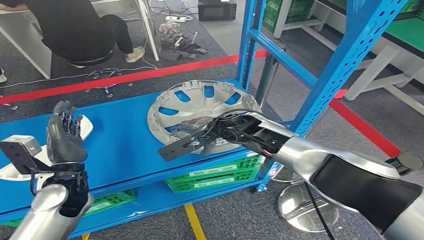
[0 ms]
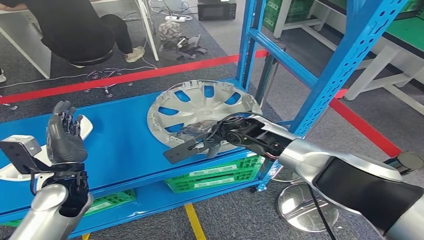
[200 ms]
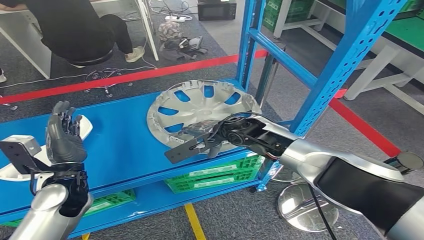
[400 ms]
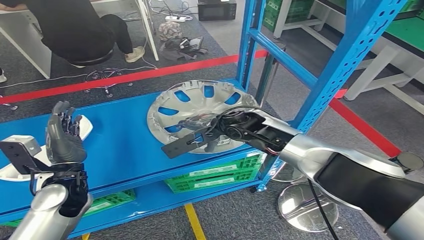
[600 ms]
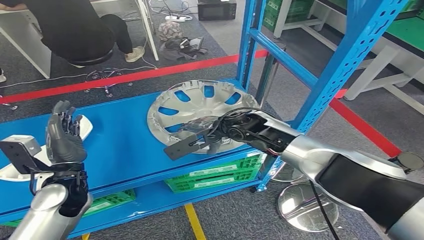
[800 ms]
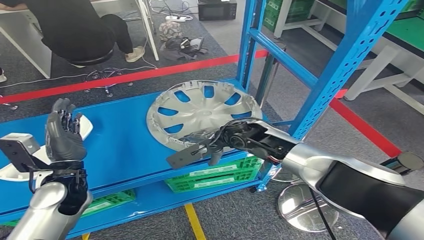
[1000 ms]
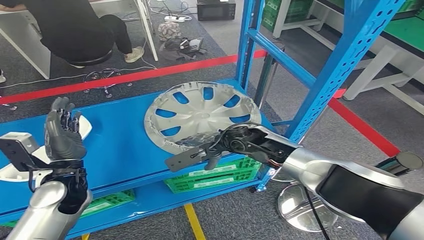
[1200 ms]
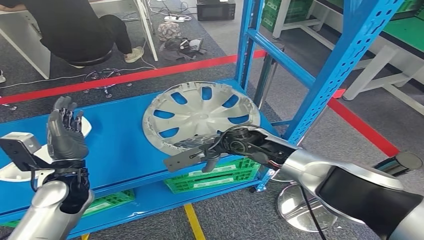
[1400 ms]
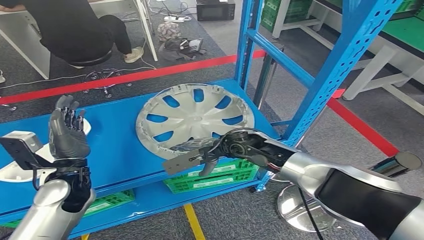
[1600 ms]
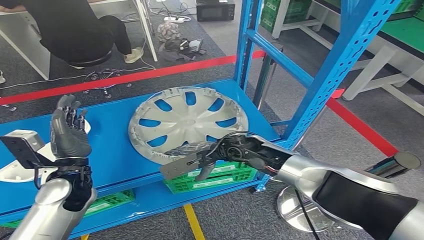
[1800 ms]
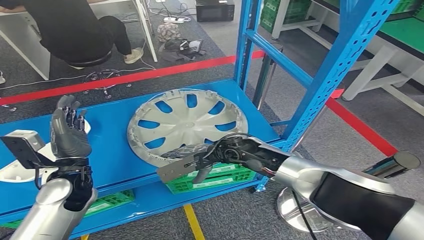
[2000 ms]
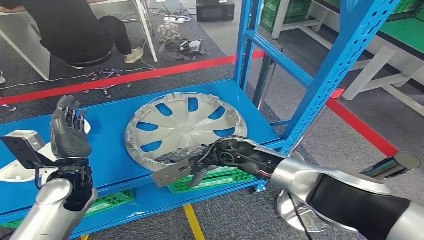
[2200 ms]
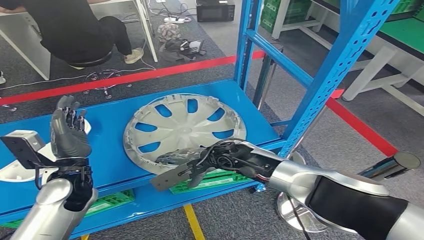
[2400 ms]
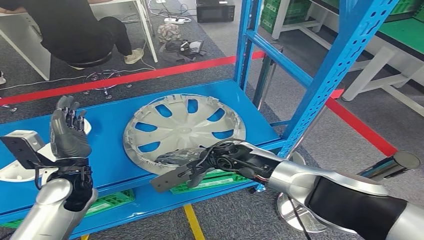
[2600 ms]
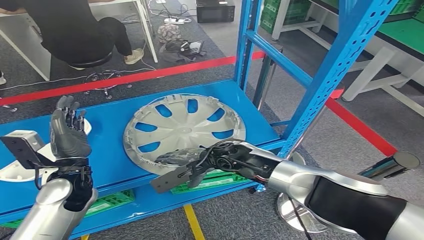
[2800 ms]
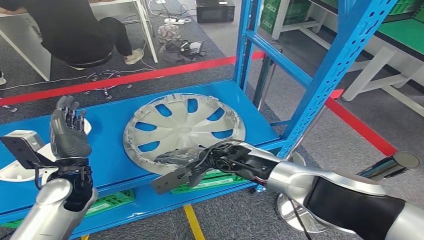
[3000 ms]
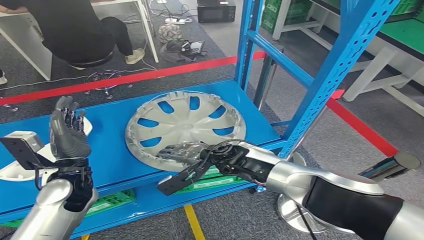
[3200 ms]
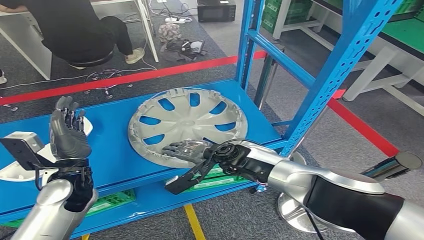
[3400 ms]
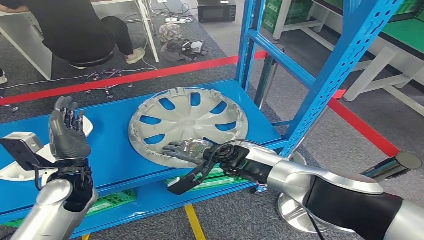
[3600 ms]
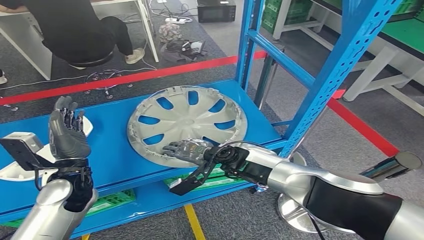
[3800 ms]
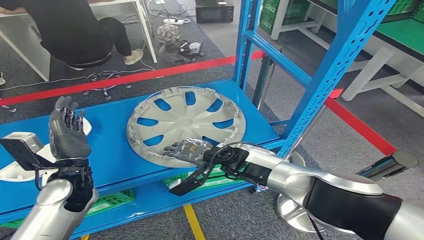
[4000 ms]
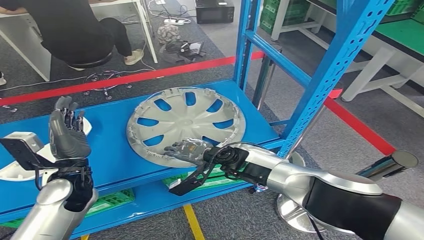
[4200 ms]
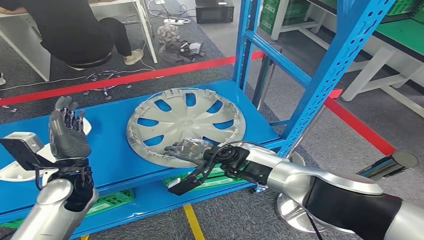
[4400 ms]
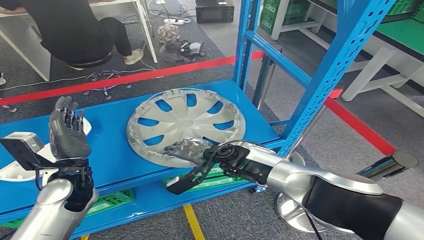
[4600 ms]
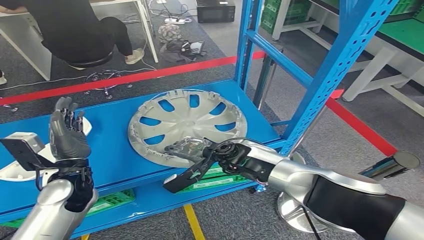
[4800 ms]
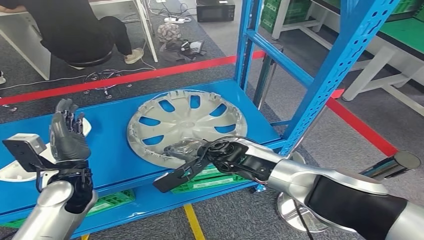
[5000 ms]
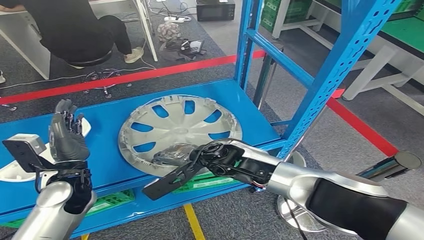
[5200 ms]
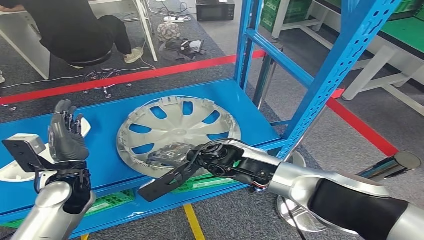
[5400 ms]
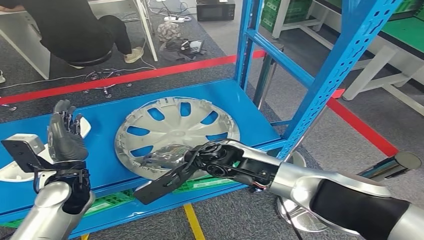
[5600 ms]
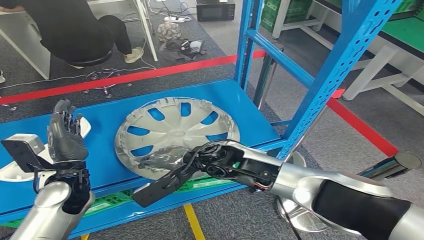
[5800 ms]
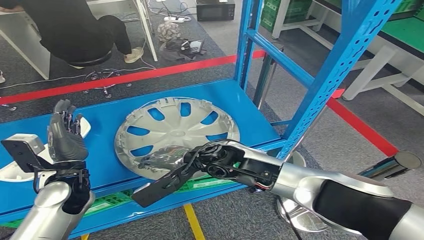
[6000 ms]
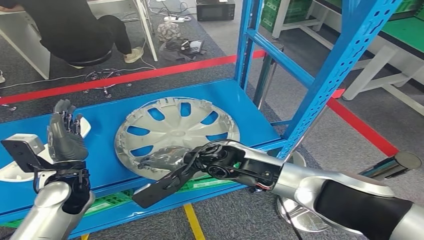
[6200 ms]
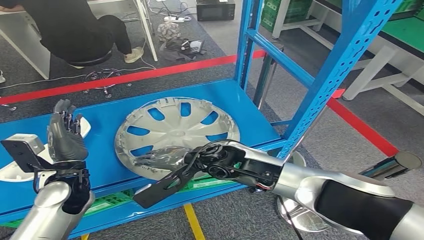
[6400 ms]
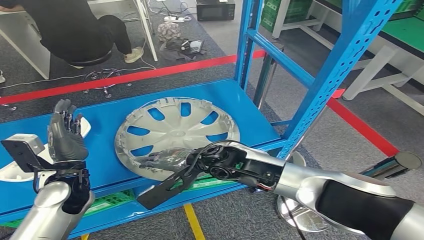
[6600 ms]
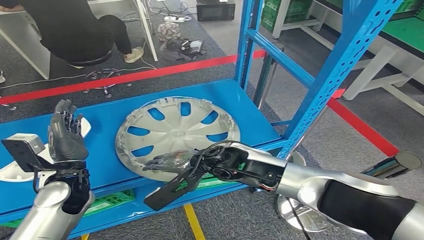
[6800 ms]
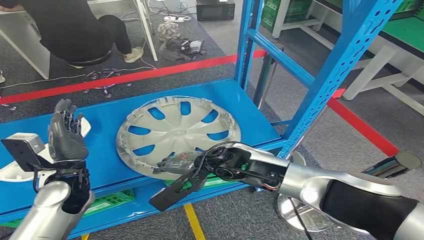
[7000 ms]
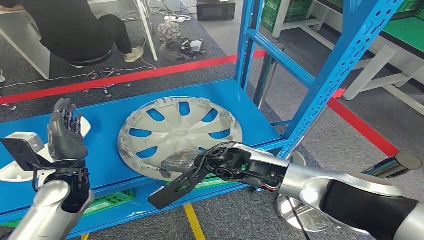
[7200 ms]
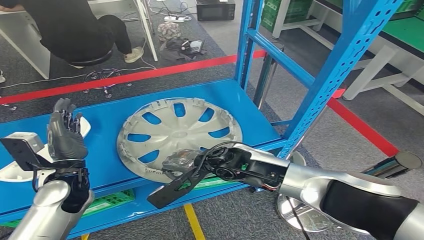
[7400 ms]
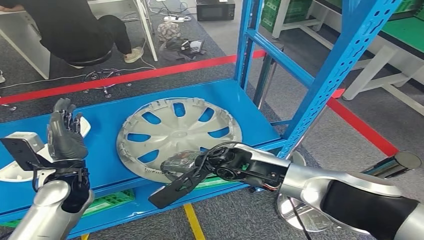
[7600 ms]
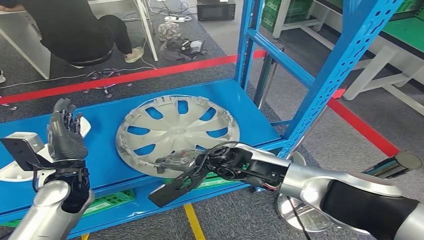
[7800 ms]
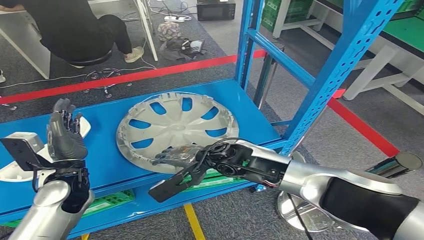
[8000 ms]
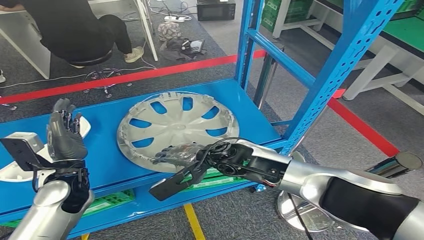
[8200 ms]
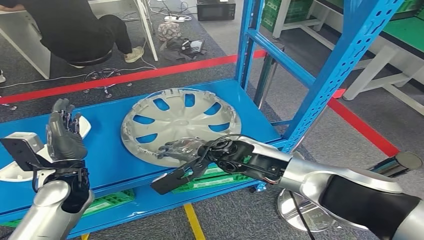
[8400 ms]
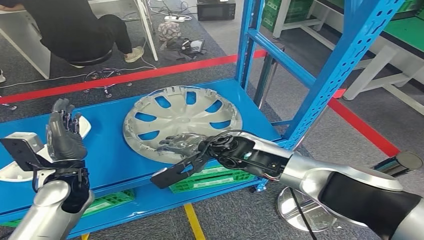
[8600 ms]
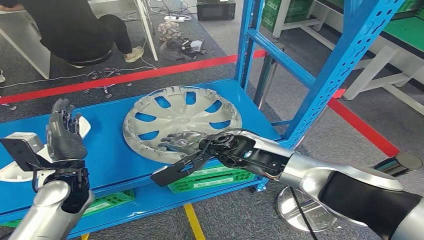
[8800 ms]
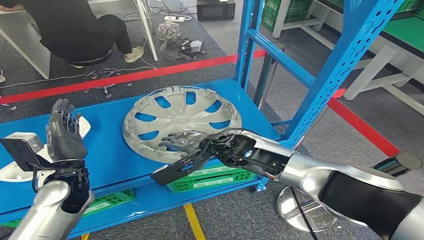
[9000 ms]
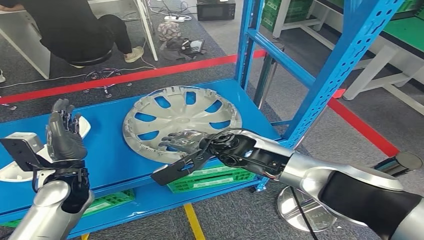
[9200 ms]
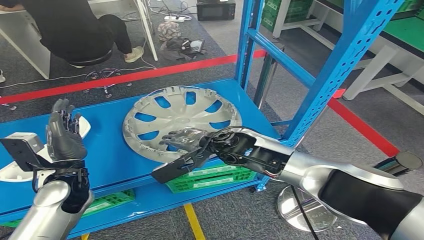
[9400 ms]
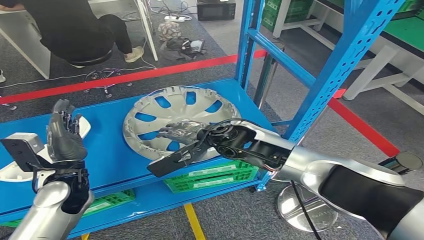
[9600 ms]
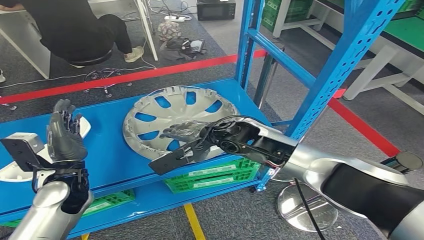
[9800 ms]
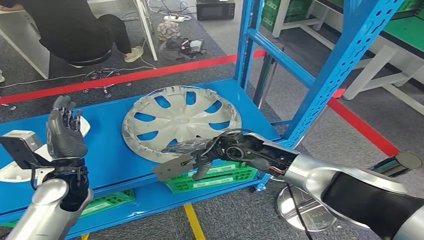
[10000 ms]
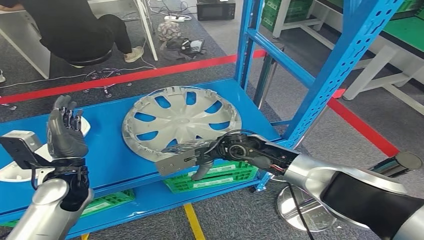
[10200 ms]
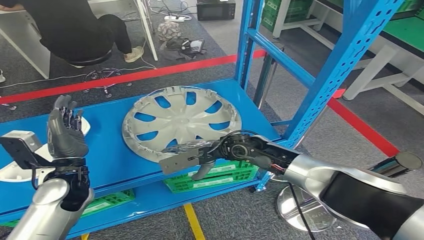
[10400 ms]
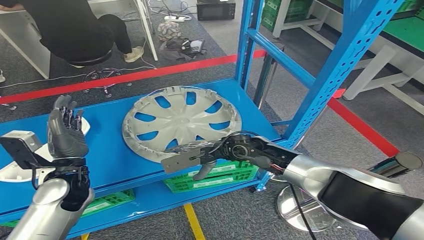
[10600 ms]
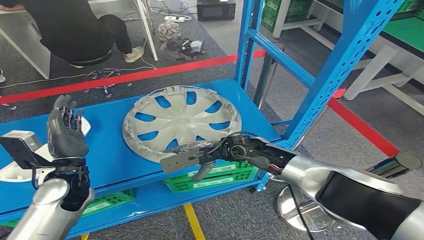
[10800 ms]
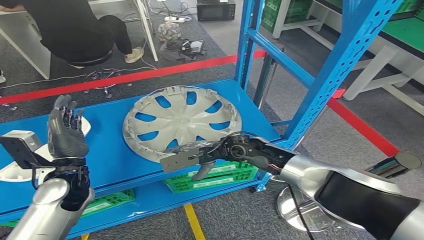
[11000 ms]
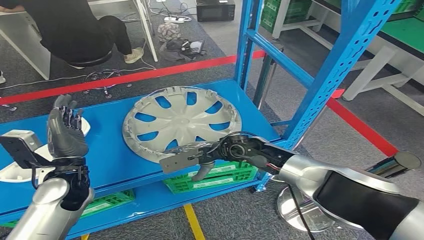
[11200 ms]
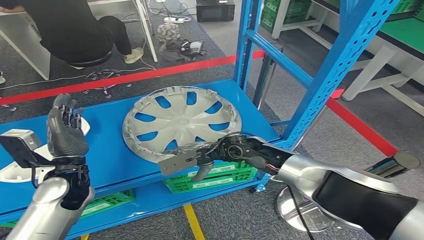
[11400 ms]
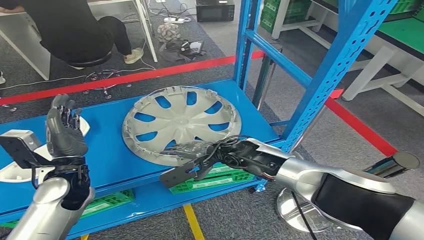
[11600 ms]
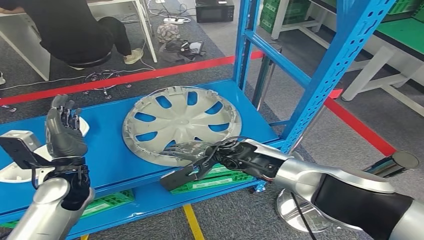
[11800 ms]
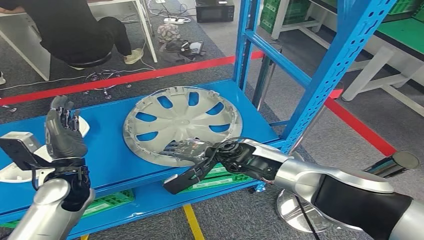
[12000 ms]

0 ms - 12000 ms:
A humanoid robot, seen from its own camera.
4400 ms - 6000 ms: The right hand travels upward and to the left by approximately 10 cm.
6000 ms - 9000 ms: The hands make only small movements.

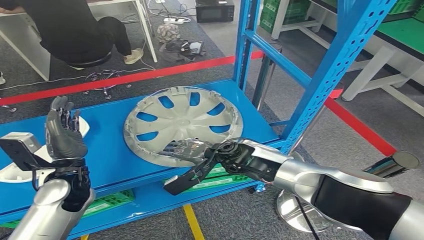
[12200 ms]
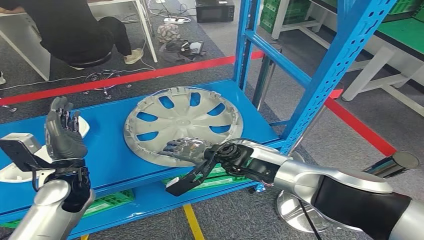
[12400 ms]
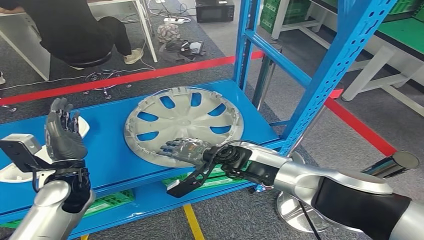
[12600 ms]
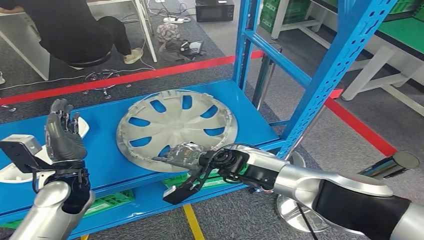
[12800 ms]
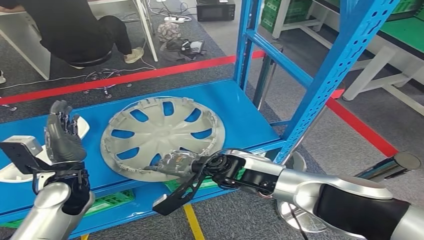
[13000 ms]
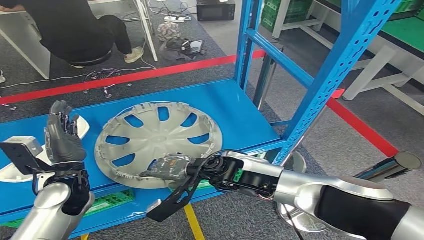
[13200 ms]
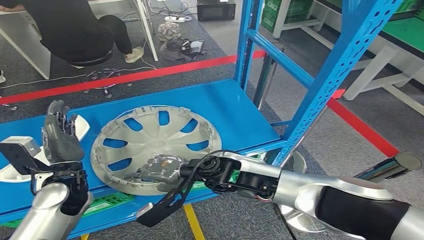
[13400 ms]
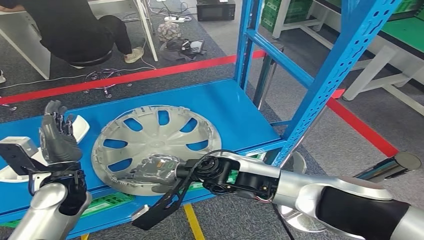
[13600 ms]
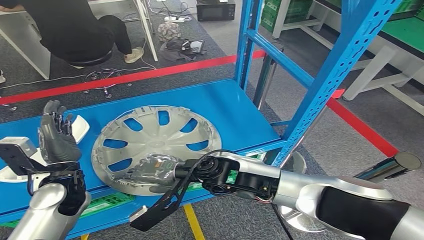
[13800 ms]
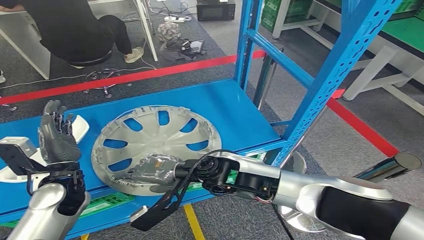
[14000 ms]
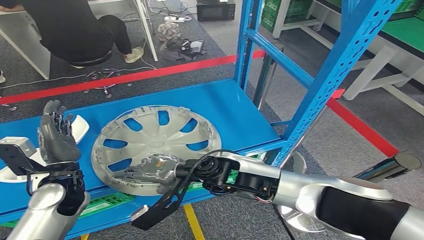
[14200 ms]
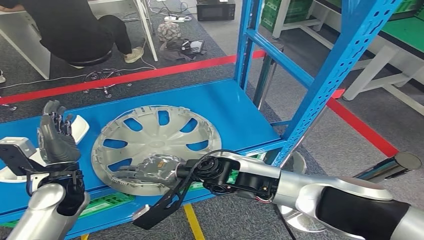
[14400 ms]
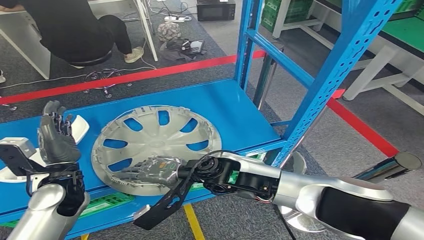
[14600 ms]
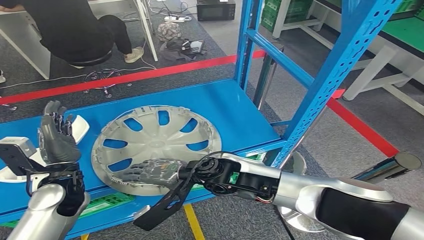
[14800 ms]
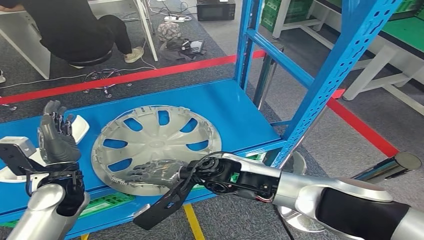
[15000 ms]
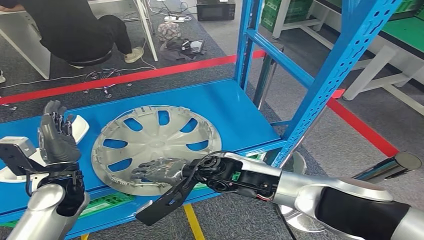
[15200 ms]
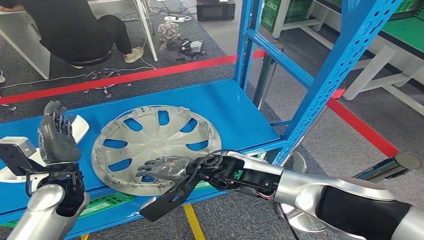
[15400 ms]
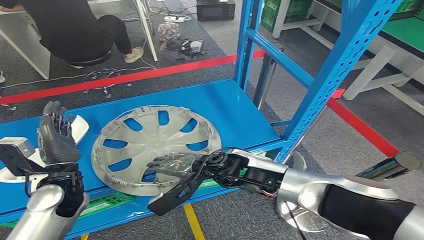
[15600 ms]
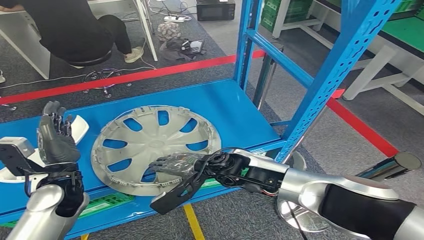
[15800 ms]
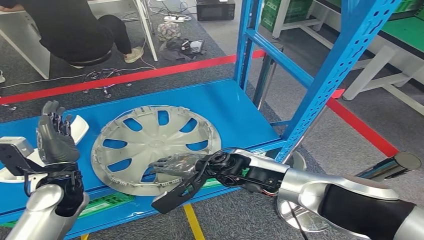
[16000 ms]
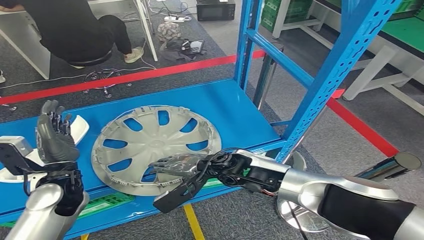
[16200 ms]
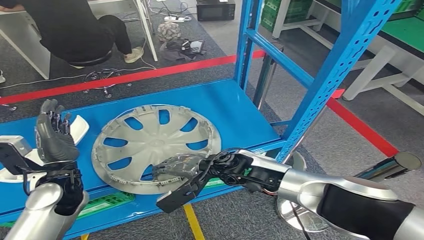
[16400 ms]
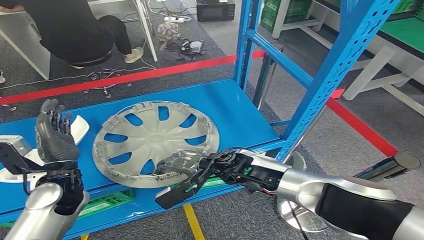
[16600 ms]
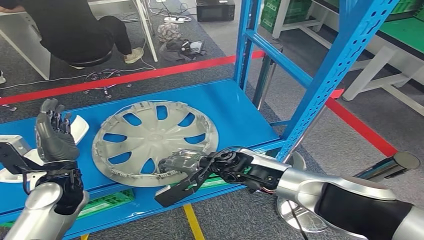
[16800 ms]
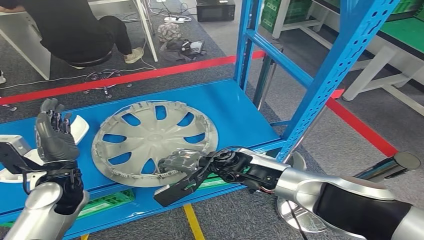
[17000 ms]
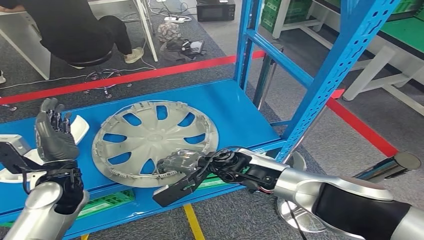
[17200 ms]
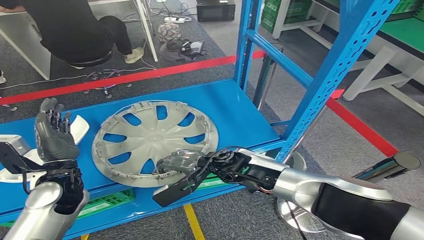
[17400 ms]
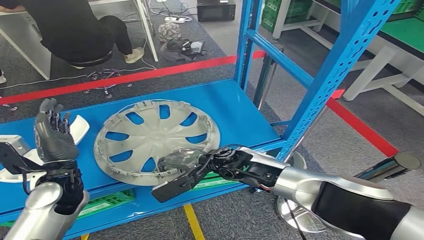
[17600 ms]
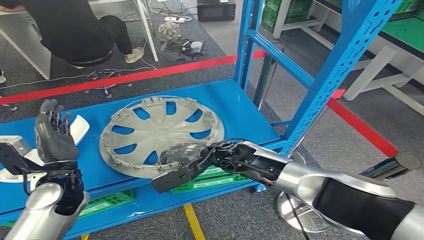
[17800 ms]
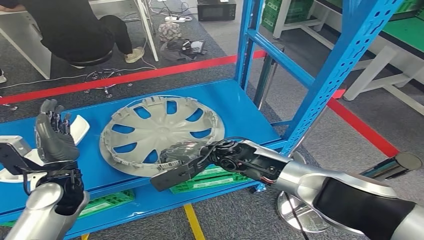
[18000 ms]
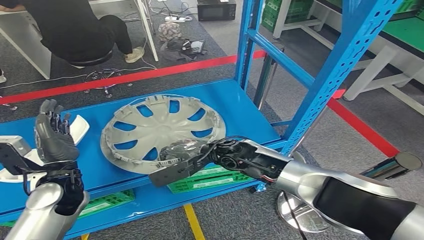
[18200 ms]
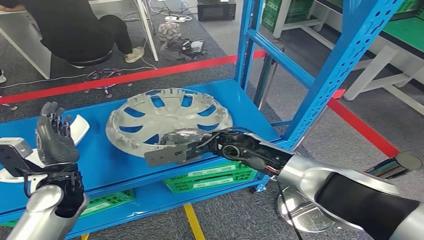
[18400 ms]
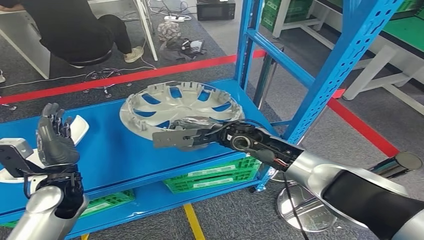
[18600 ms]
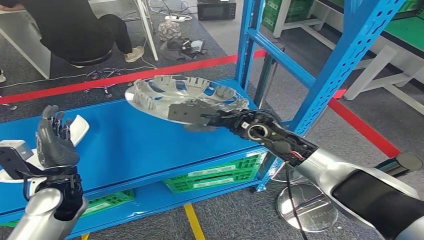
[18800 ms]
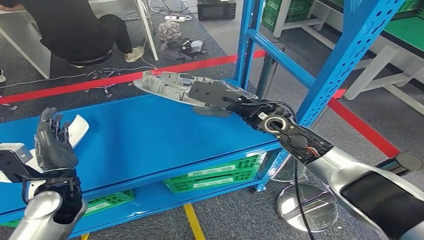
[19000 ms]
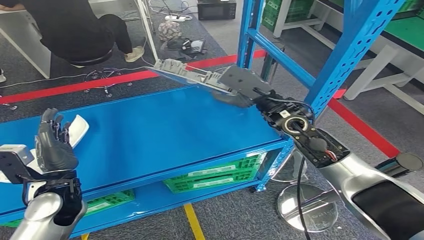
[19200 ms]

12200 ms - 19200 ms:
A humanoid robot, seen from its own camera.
13600 ms - 15000 ms: The hands make only small movements.
15000 ms - 16400 ms: The right hand moves approximately 5 cm.
16400 ms - 17800 ms: There are only small adjustments of the hands.
